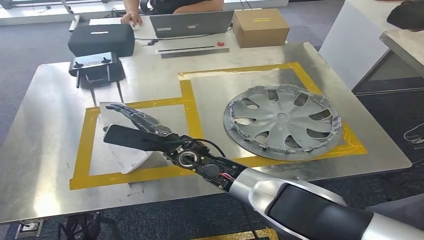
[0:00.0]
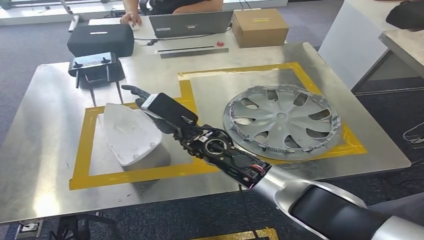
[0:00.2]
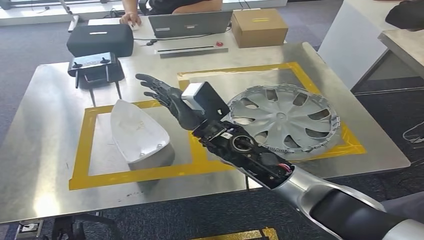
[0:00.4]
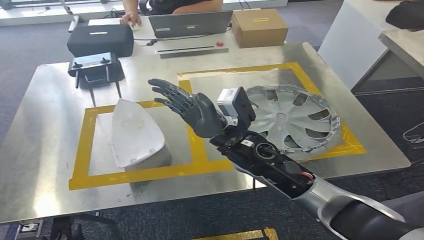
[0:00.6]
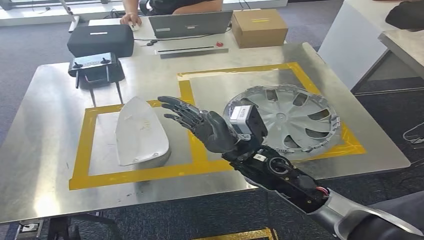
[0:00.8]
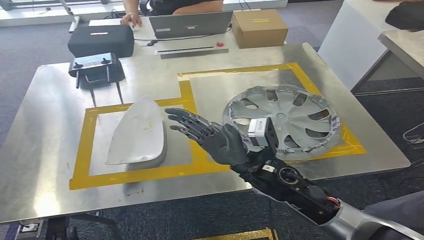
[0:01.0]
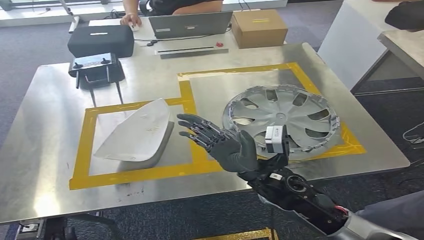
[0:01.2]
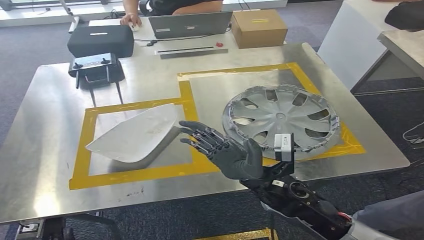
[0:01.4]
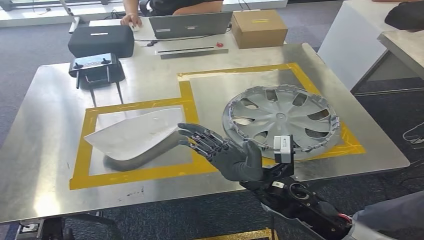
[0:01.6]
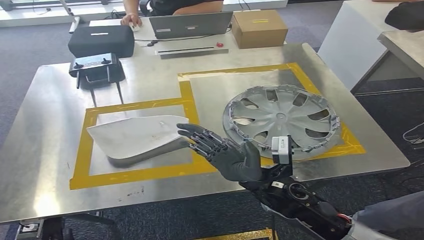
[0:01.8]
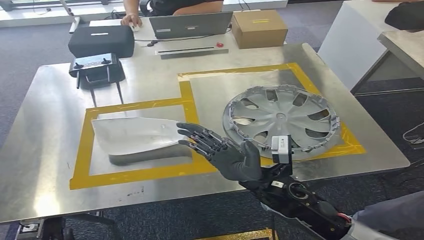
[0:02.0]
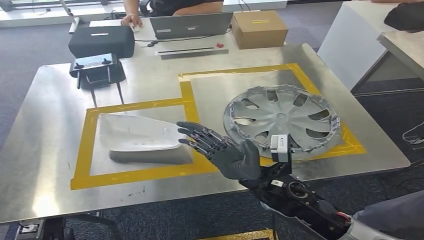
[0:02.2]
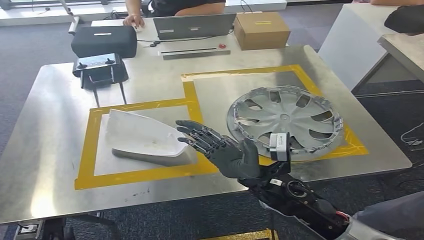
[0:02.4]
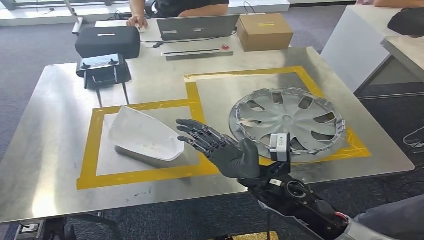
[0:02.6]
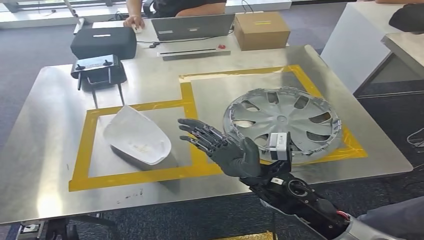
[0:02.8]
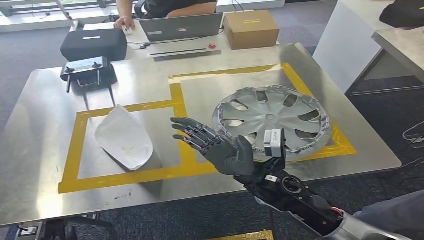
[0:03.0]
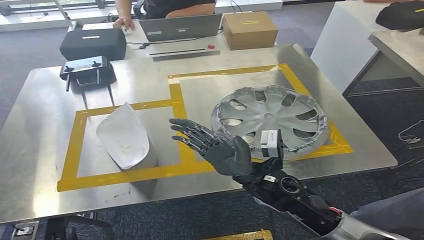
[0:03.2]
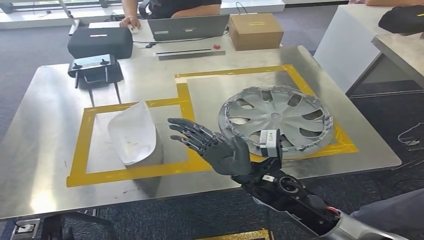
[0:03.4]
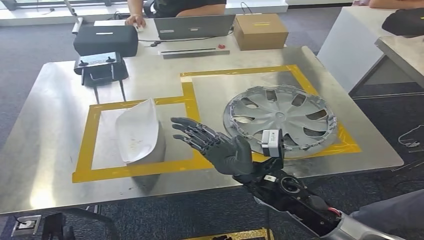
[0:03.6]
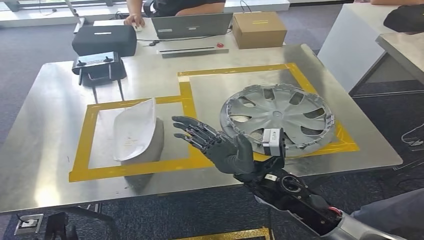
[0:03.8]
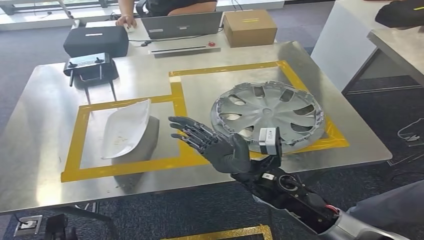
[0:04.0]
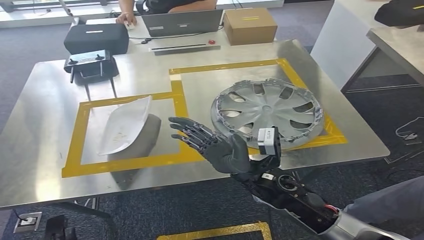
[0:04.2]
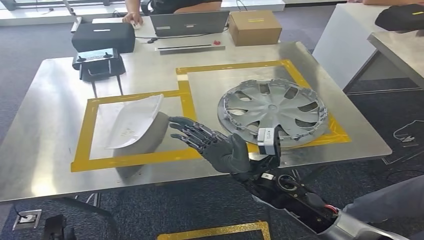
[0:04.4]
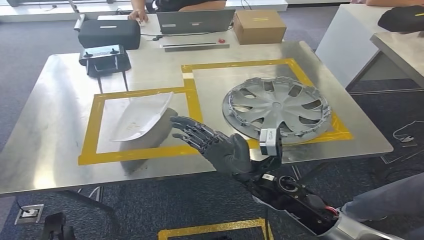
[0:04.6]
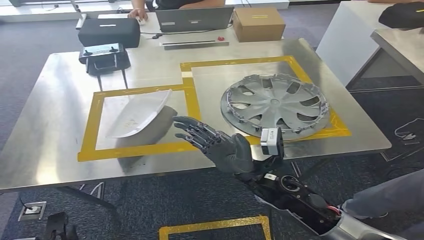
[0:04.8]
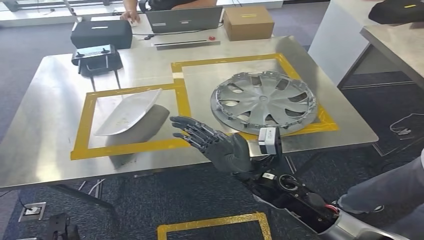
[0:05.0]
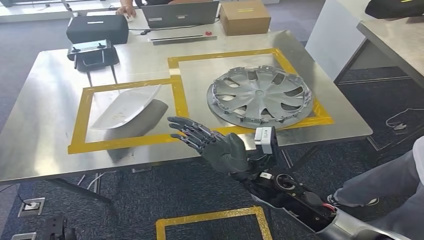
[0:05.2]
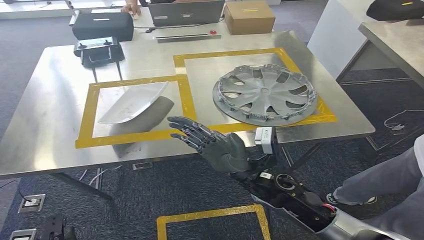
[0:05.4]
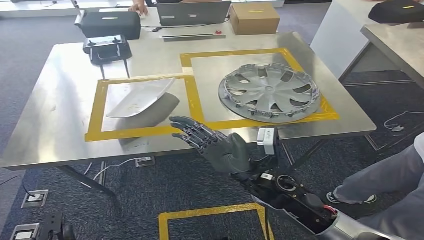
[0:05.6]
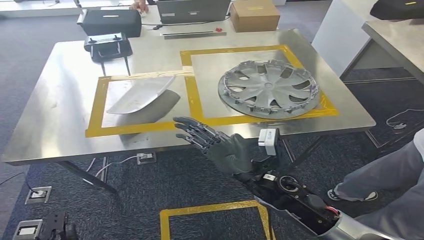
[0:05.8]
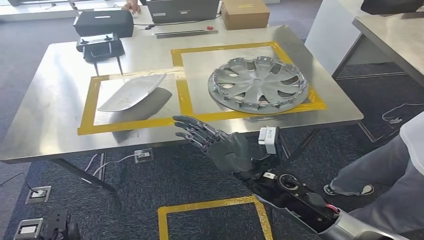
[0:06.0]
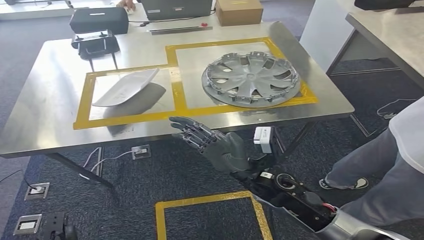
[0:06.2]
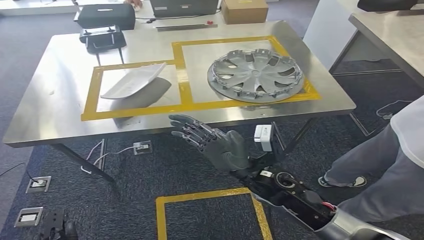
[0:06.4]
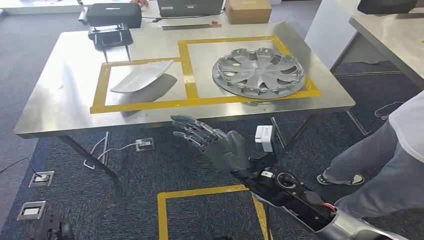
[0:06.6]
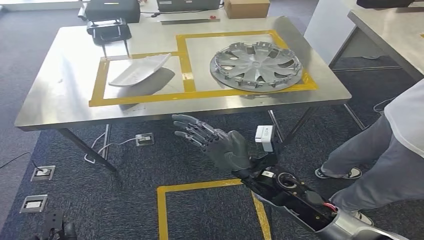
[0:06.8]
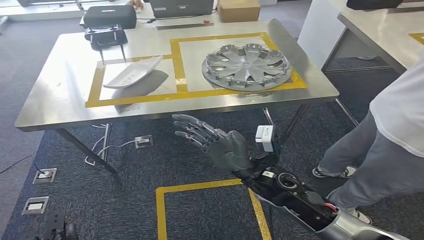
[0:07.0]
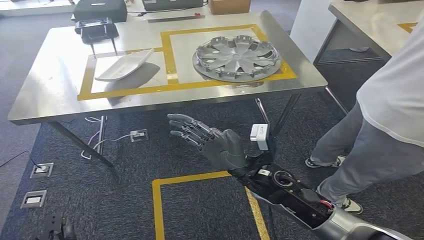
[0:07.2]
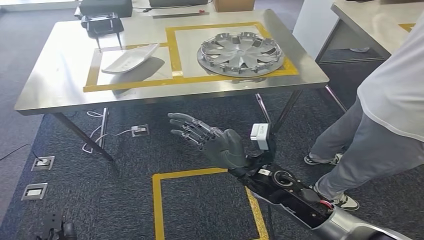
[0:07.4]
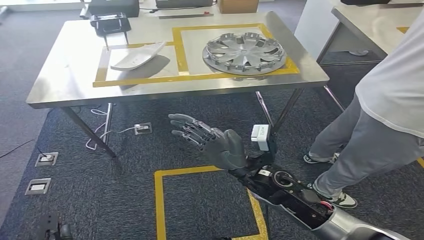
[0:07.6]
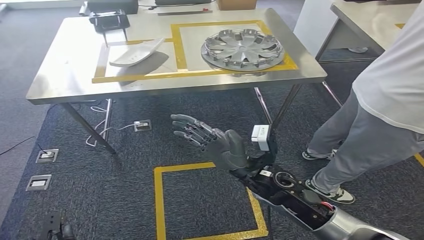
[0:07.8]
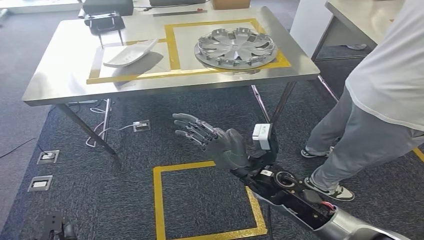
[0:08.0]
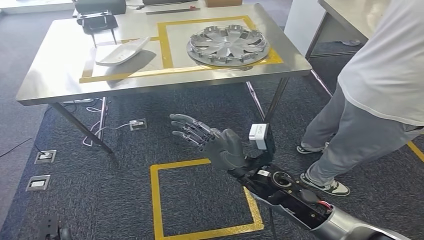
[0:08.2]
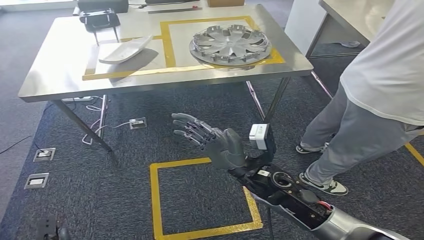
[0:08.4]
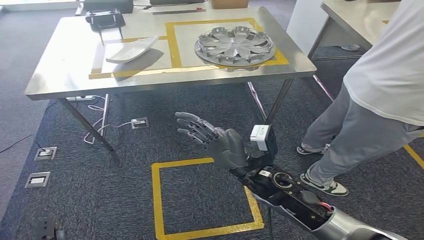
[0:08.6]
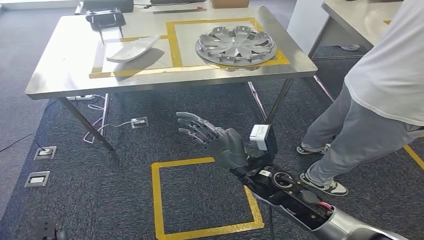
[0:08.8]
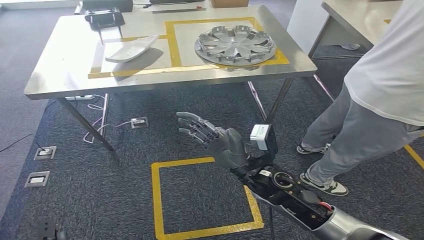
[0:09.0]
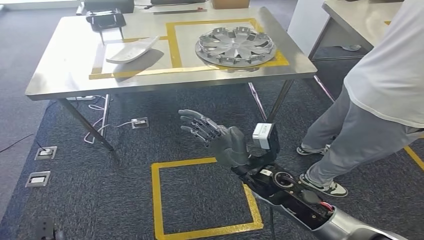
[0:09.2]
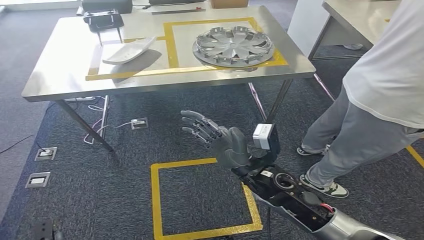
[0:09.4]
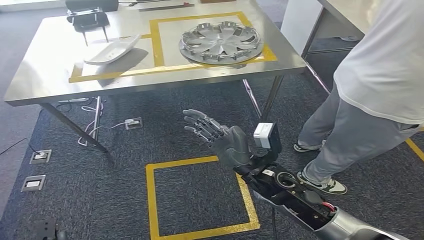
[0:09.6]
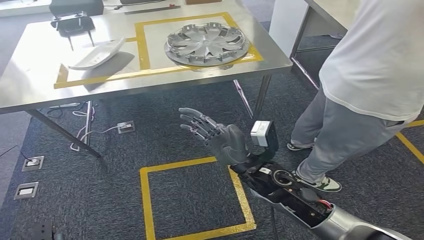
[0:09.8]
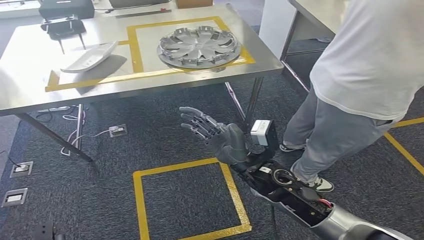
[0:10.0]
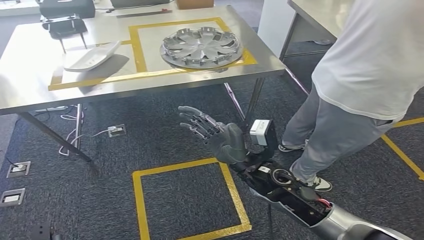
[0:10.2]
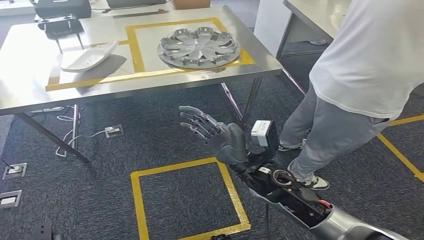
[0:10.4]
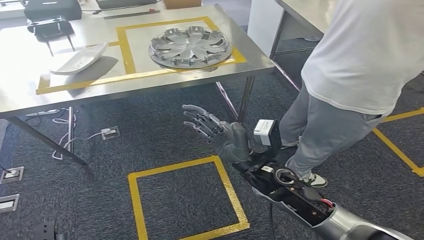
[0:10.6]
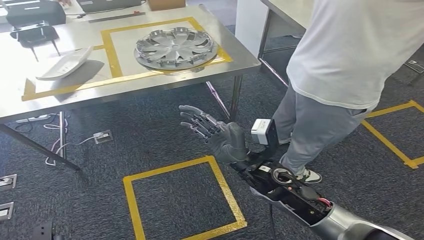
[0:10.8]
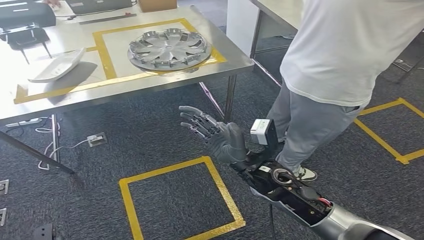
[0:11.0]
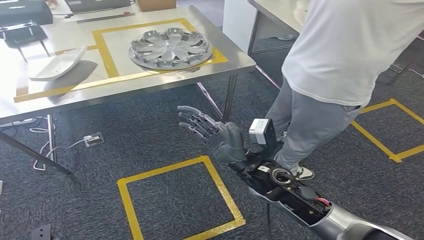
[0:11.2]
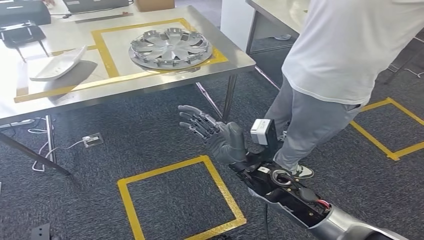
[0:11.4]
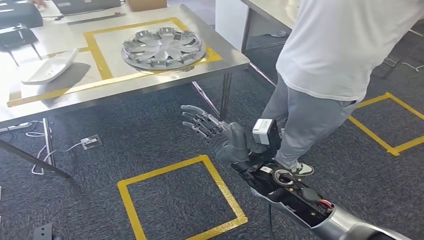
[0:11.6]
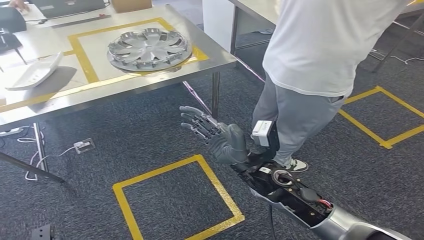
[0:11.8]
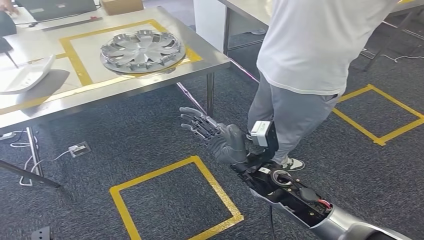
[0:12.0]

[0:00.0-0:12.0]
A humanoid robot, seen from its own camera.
0:00.0 to 0:01.6: The left hand goes roughly 5 cm to the left; the right hand moves to the right and backward, approximately 20 cm.

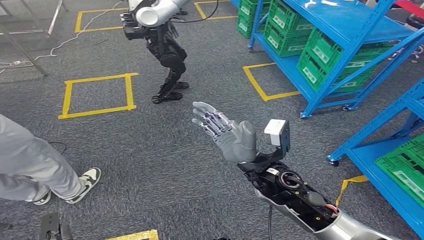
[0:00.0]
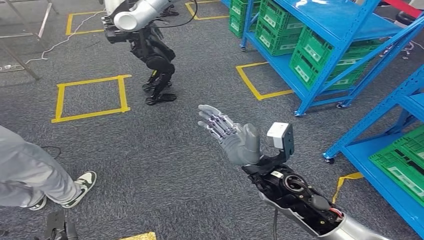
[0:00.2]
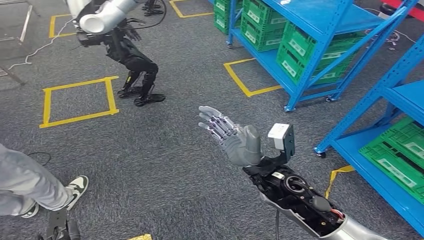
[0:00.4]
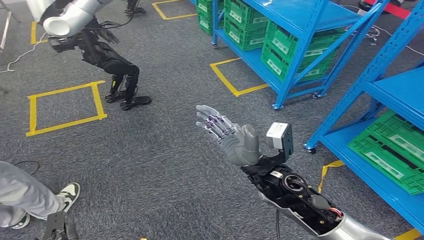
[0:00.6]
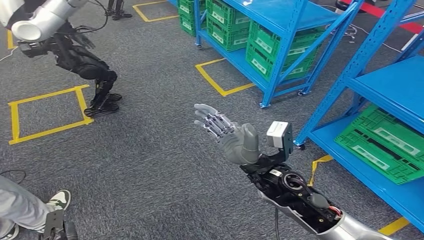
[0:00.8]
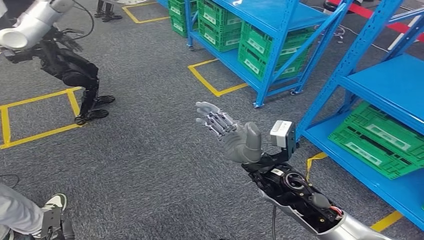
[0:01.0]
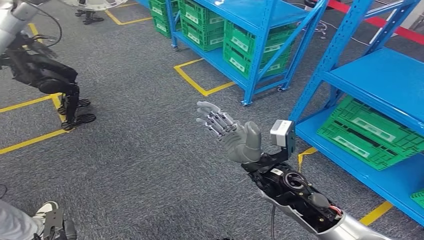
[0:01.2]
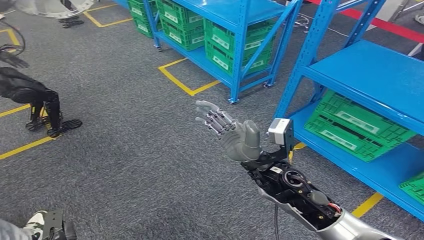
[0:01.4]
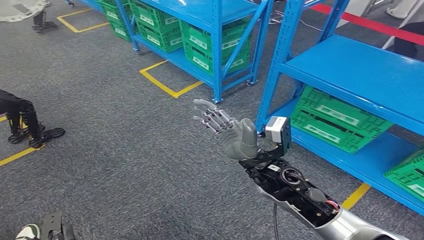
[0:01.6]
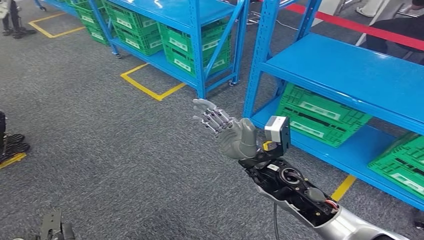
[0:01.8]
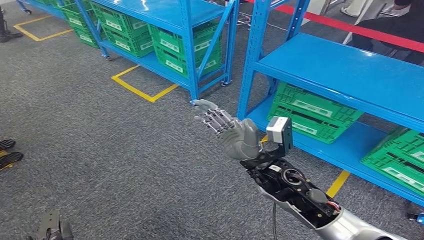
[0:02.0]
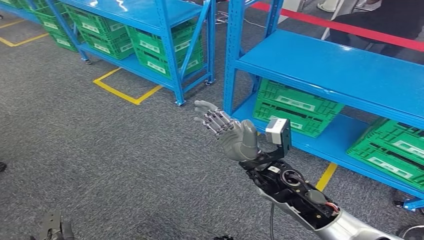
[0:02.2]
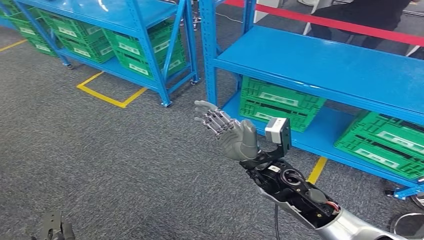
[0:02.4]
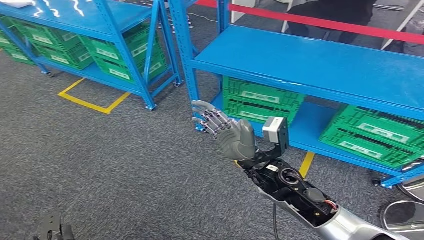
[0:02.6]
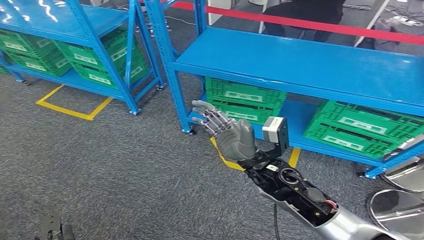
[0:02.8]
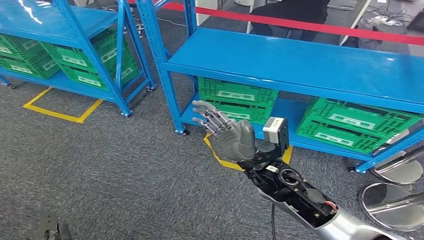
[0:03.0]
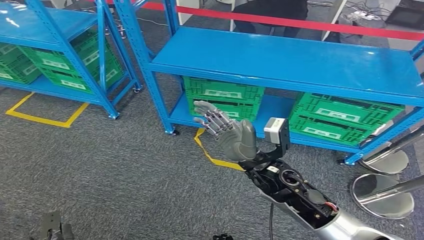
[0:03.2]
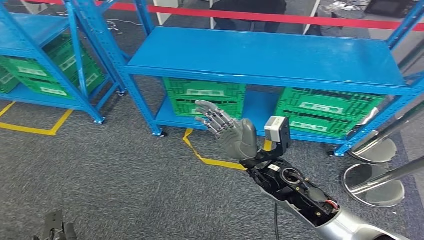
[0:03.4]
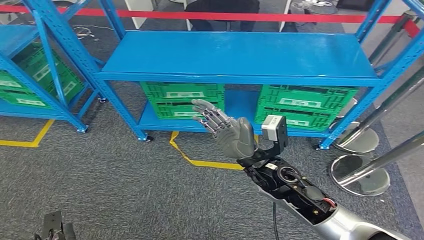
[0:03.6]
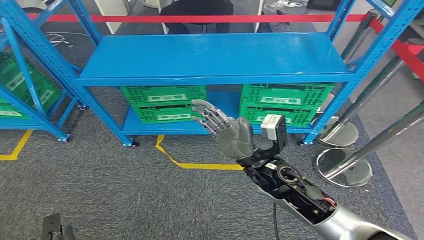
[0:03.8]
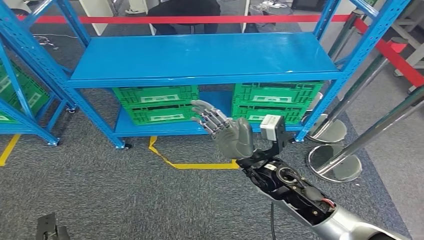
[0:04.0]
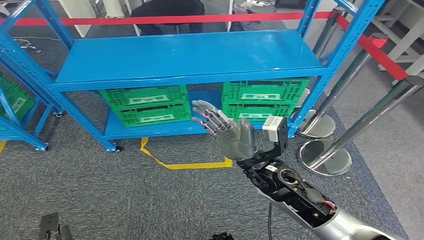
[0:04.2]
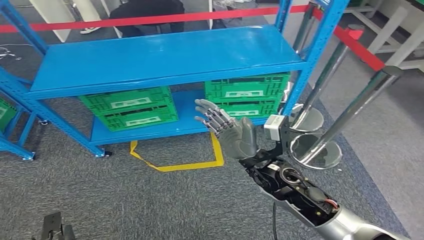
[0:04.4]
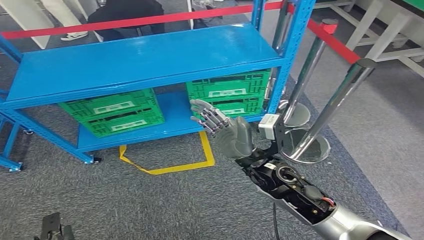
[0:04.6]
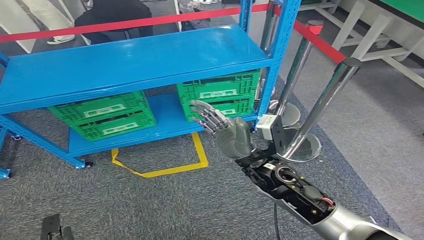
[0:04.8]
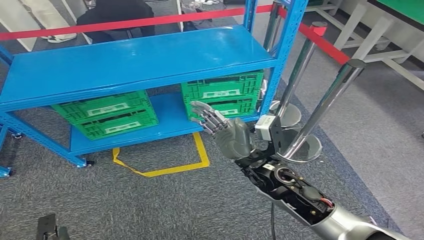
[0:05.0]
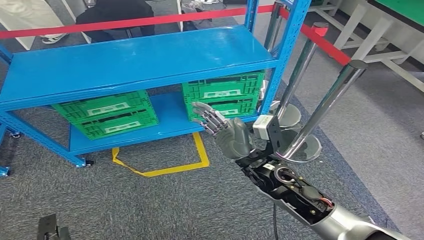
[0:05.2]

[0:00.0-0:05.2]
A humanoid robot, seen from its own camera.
Step, 0:00.0 to 0:05.2: Move to the initial position at the workbench.
